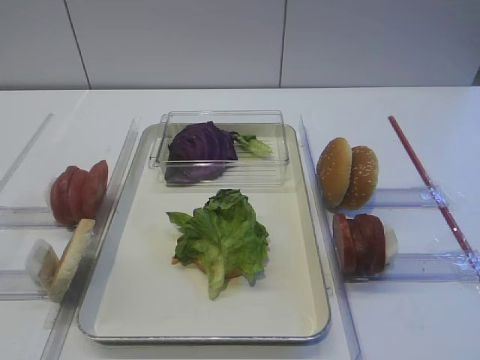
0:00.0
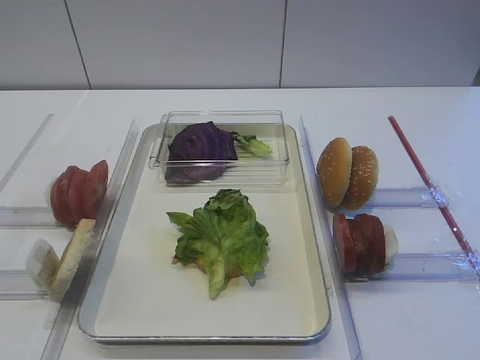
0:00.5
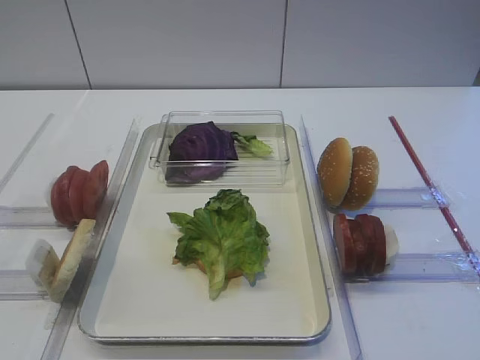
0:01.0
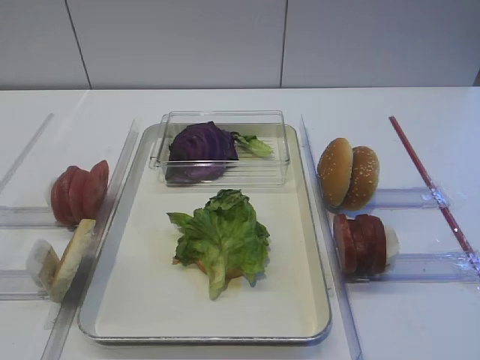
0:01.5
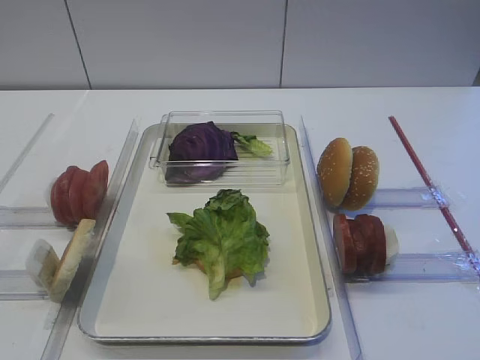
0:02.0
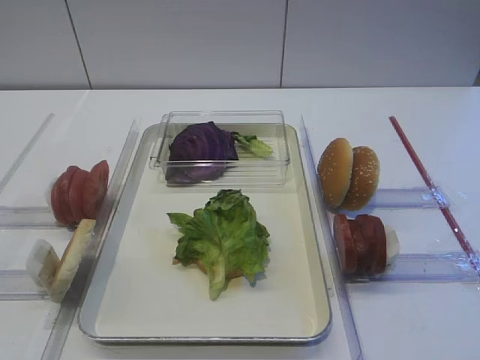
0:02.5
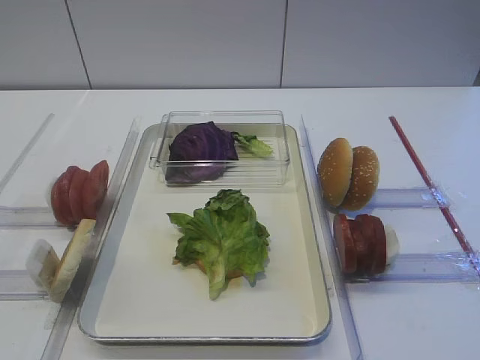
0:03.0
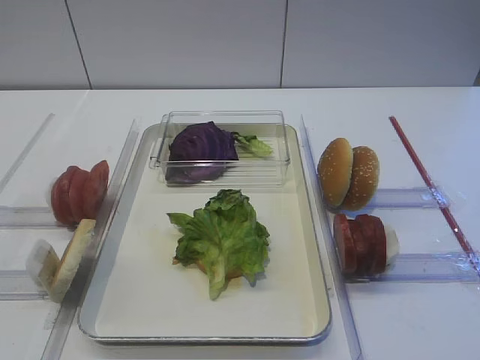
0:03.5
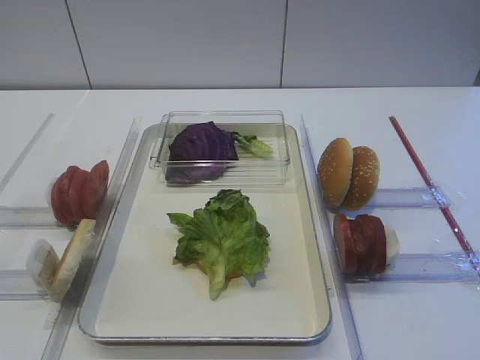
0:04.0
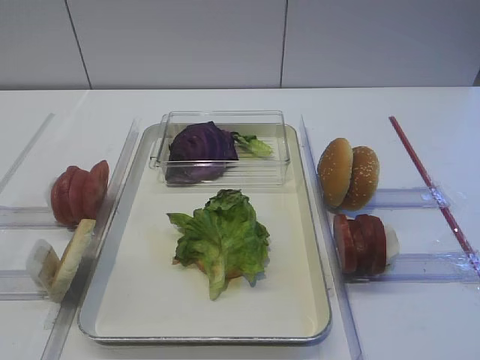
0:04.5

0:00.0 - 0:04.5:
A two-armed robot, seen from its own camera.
0:02.0 - 0:04.5: Both grippers stay about where they are.

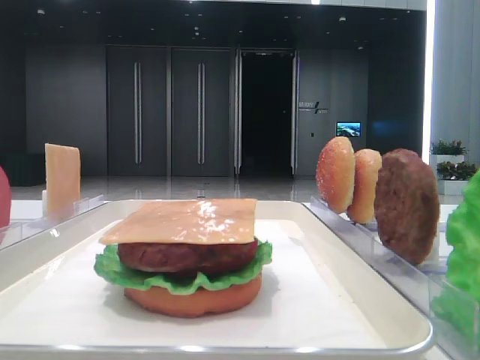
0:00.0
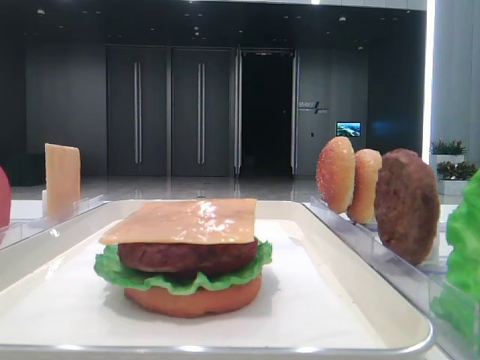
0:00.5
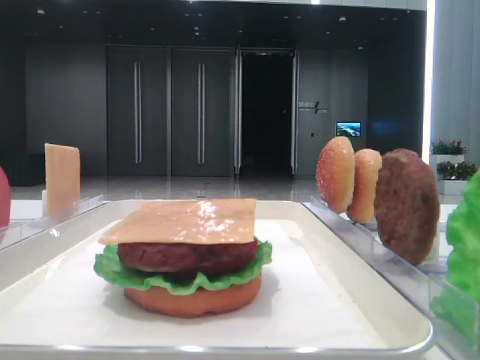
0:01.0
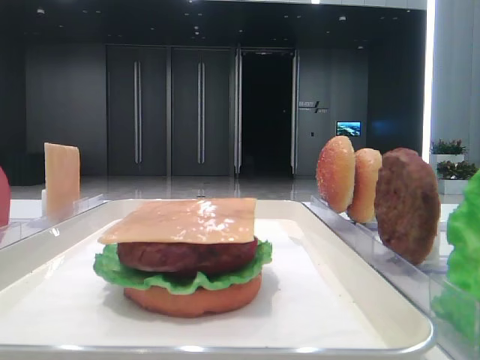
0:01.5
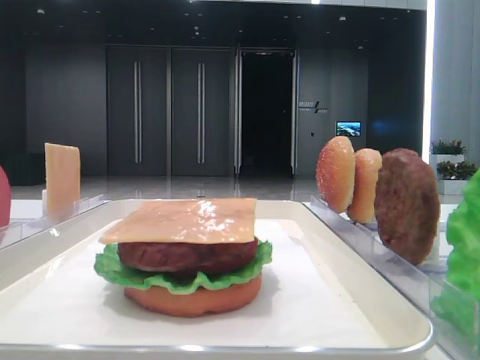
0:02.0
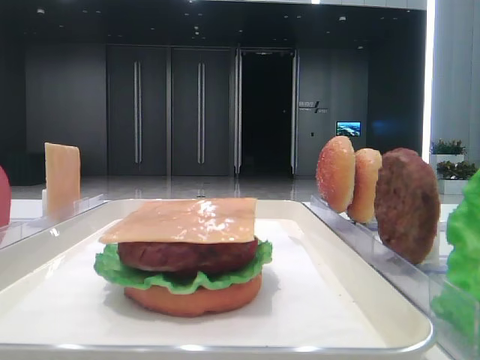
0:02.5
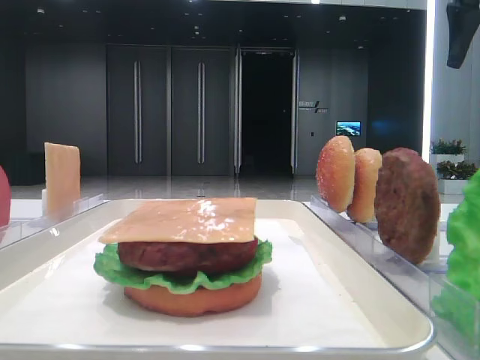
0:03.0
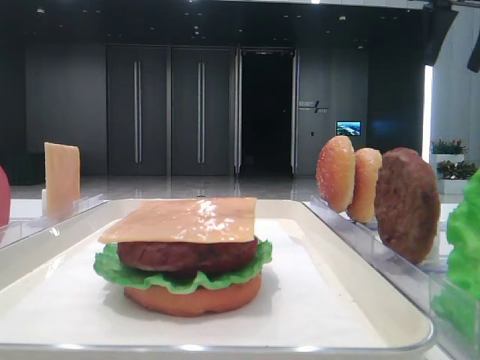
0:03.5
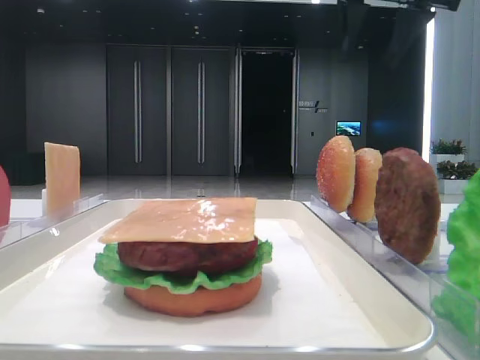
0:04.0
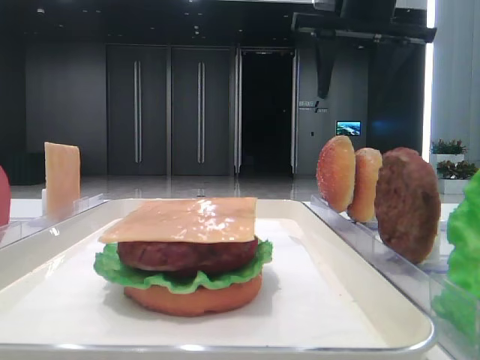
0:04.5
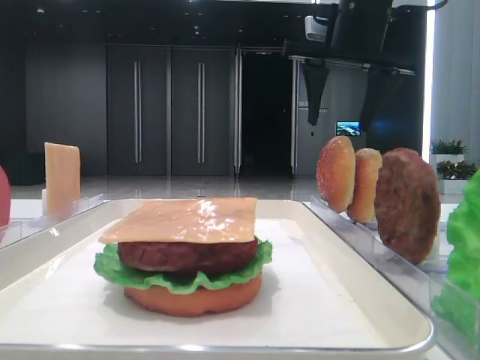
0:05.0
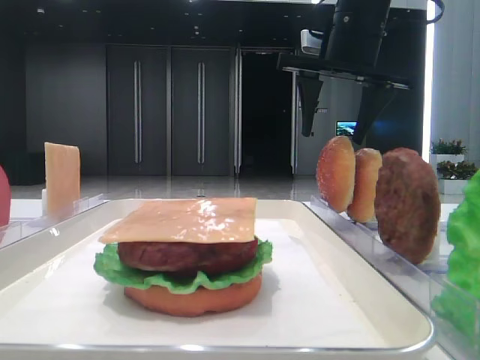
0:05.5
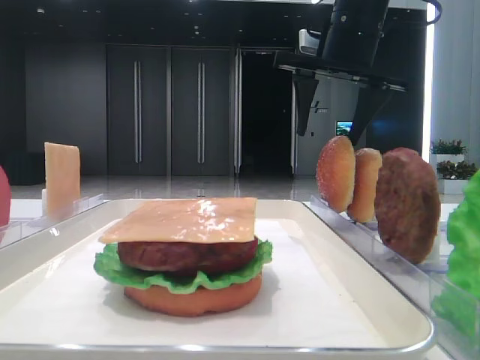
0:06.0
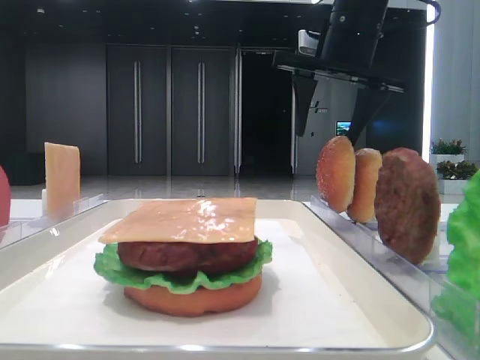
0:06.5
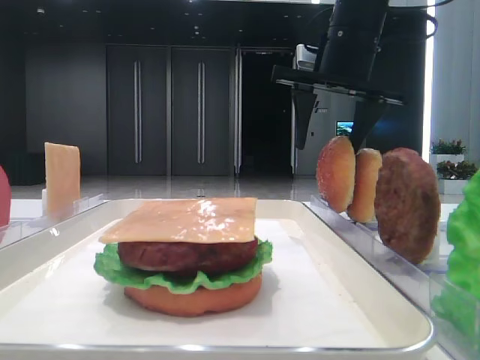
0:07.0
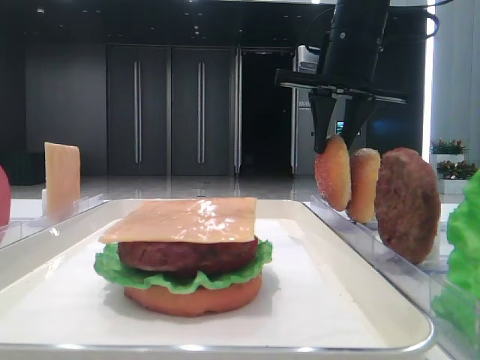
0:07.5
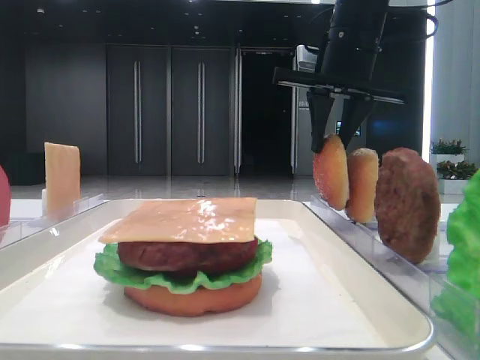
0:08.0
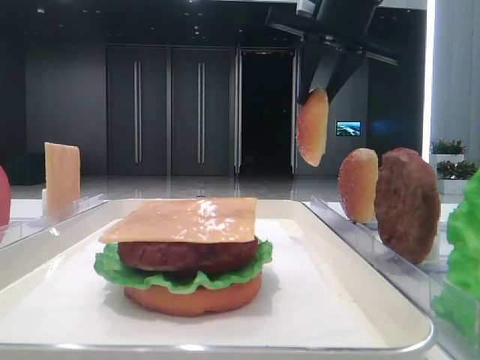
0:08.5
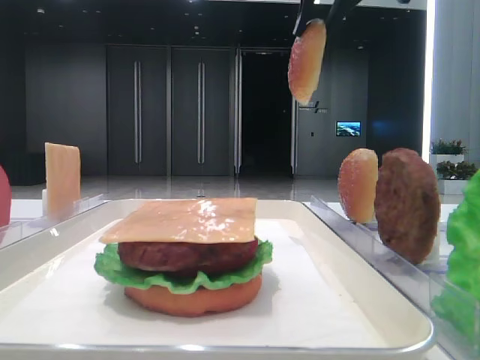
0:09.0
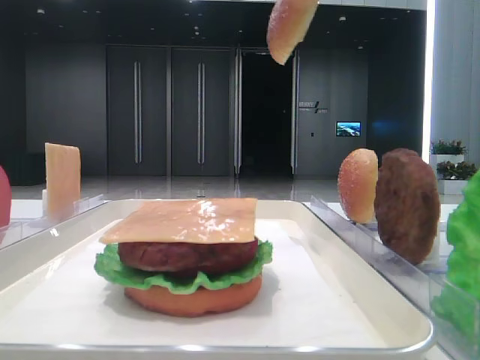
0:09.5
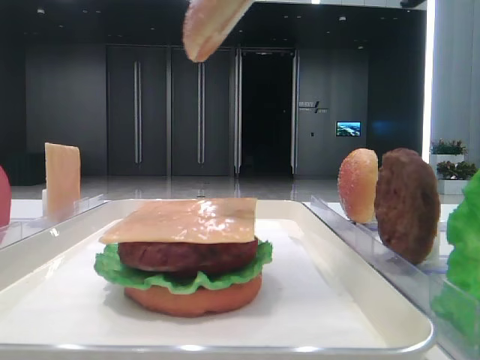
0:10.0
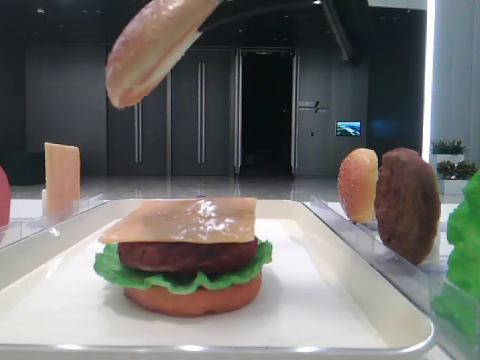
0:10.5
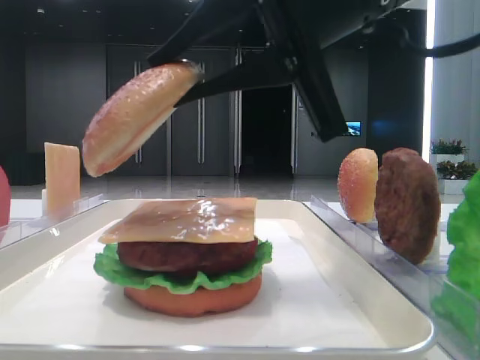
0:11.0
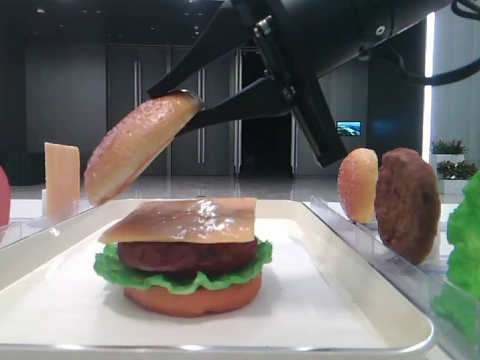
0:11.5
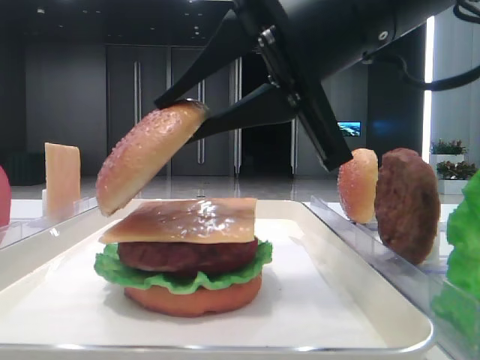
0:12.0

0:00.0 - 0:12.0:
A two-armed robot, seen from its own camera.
Step, 0:00.0 - 0:07.0: Pick up the top bread slice with the right hand.
0:02.0 - 0:04.0: The right gripper moves forward and to the left, roughly 20 cm.
0:04.0 - 0:06.0: The right gripper is displaced downward by roughly 10 cm.
0:06.0 - 0:08.0: The right gripper closes its fingers.
0:08.0 - 0:10.0: The right gripper heads backward, covering about 20 cm.
0:10.0 - 0:12.0: The right gripper heads downward and to the left, covering some 10 cm.

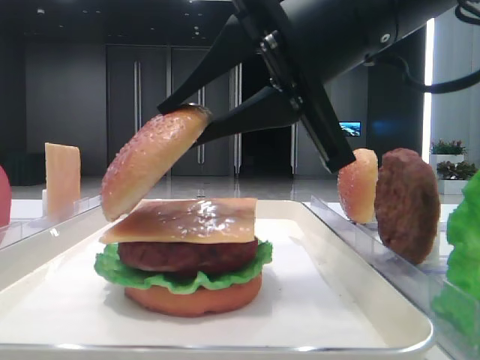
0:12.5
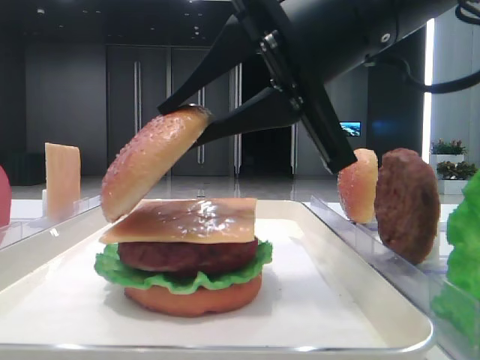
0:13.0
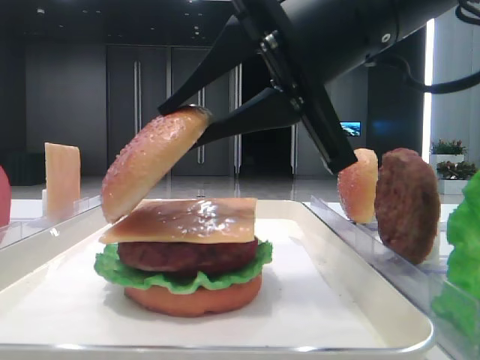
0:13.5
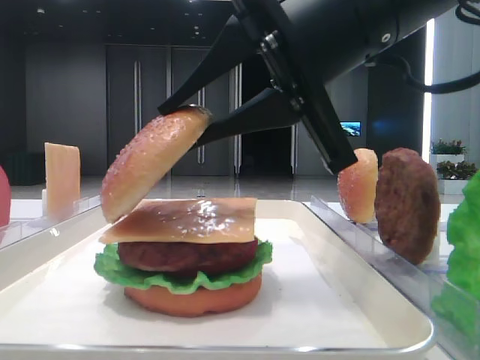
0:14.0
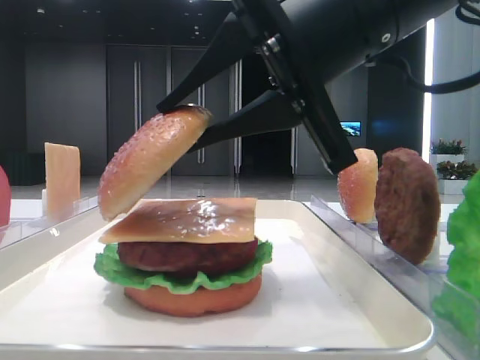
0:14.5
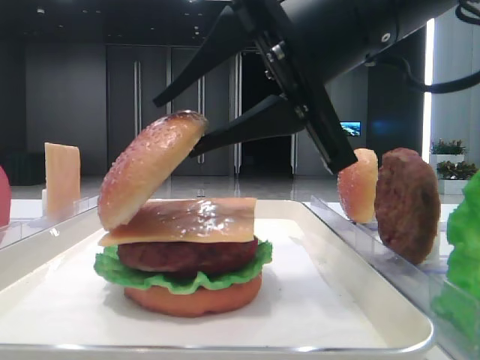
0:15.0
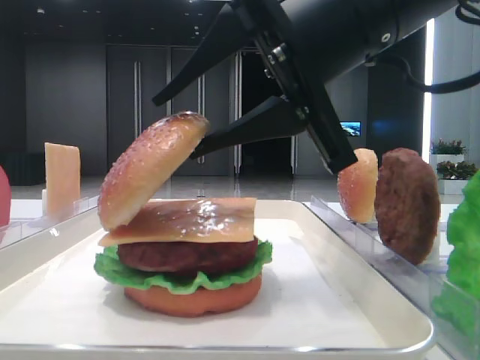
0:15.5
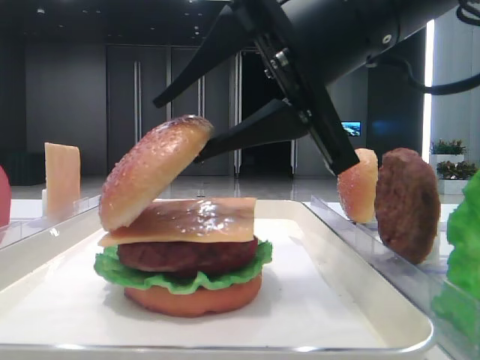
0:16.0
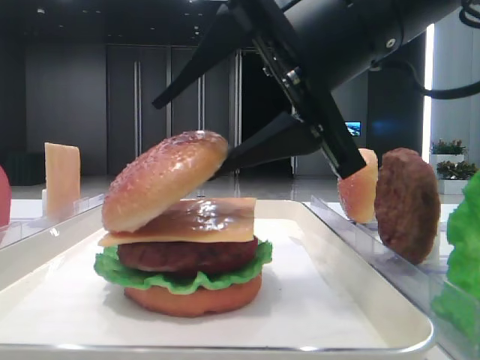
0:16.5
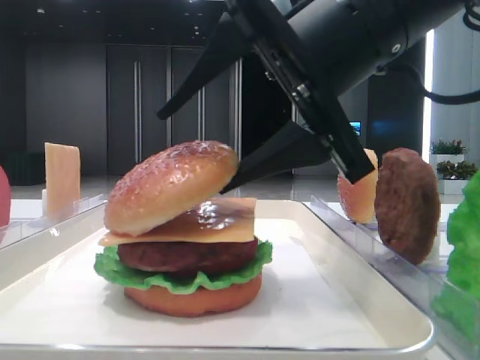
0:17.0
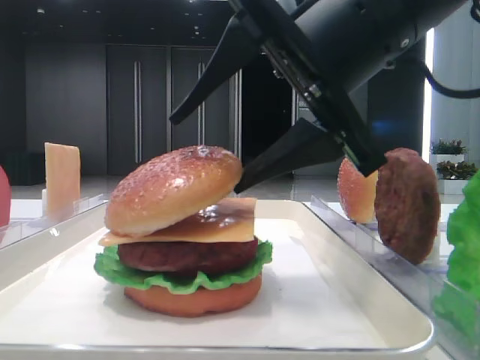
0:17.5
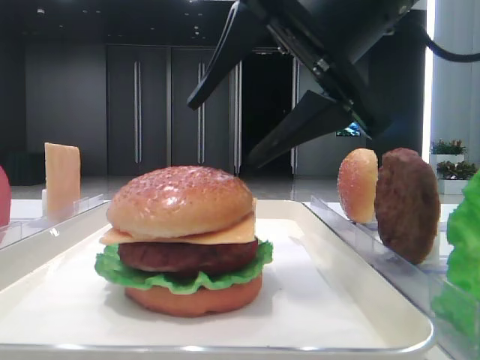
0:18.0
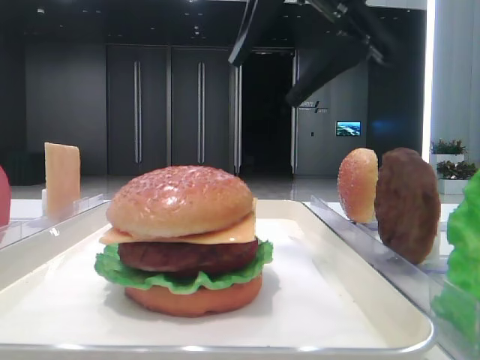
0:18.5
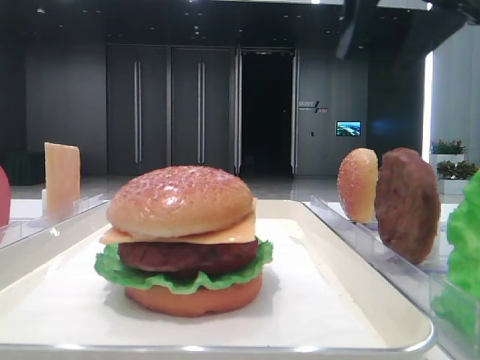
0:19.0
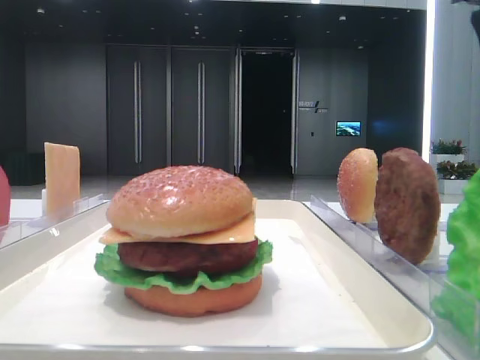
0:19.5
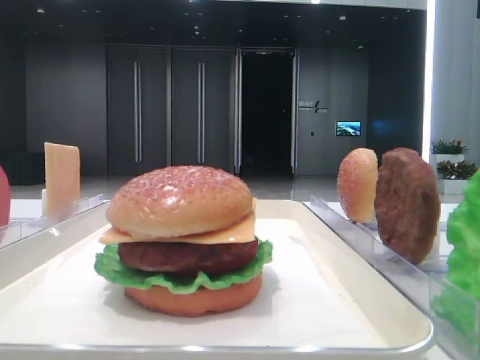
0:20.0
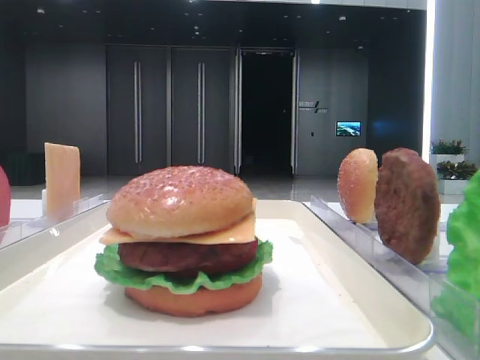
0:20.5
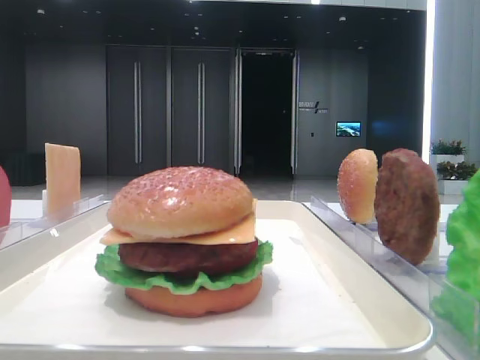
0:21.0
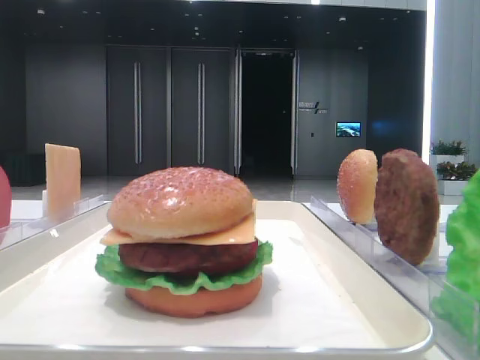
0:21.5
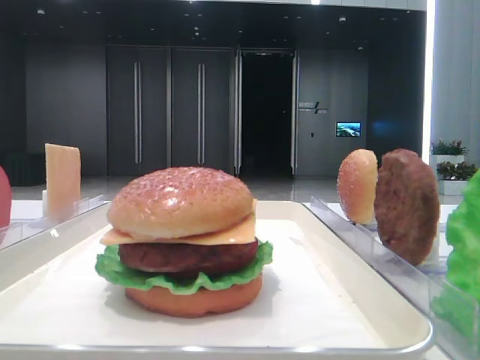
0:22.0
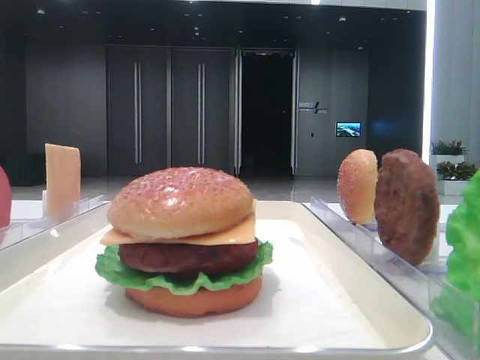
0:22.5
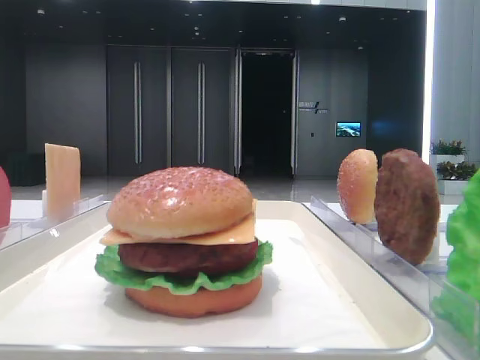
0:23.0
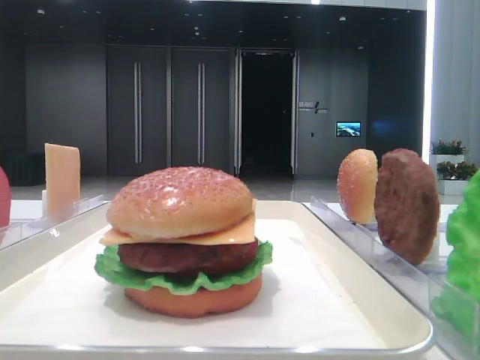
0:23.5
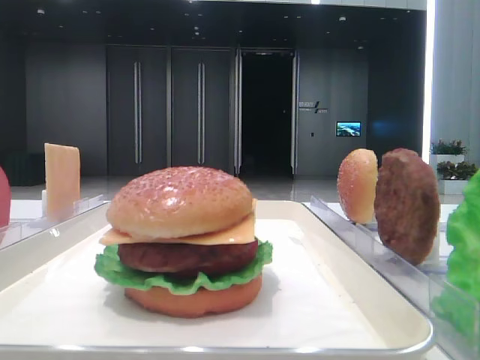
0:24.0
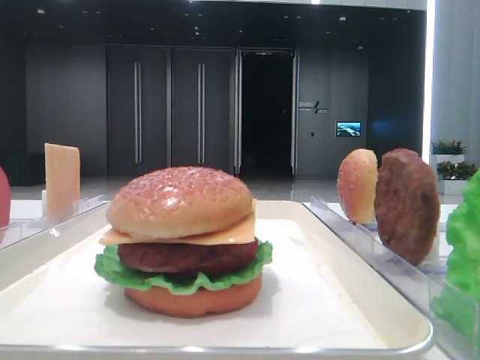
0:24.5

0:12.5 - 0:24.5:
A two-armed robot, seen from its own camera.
Step, 0:12.5 - 0:17.5: Place the top bread slice on the cheese with the right hand.
0:12.5 - 0:14.5: Neither gripper changes place.
0:14.5 - 0:16.5: The right gripper opens up.
0:16.5 - 0:18.5: The right gripper moves upward, about 10 cm.
0:18.5 - 0:20.5: The right gripper heads to the right, covering roughly 20 cm.
0:20.5 - 0:22.5: The right gripper shifts about 25 cm backward.
0:22.5 - 0:24.5: The two grippers keep their place.
